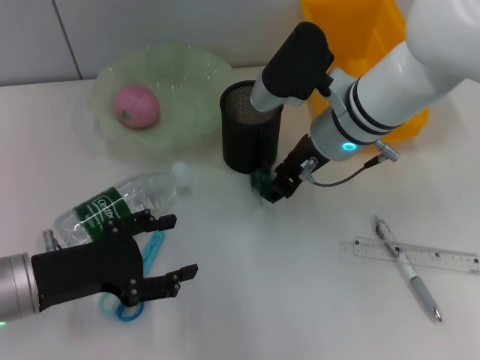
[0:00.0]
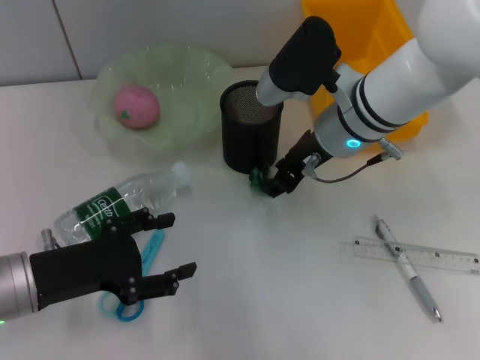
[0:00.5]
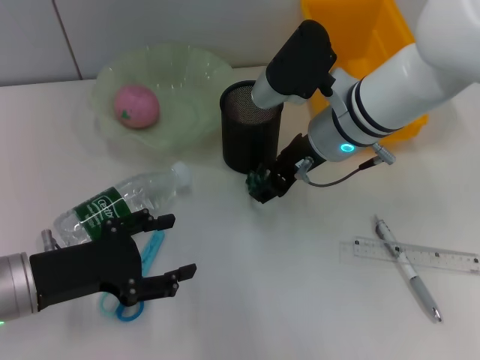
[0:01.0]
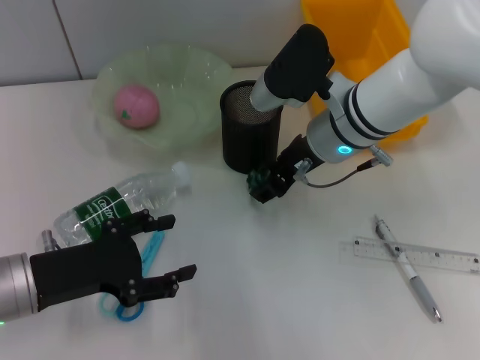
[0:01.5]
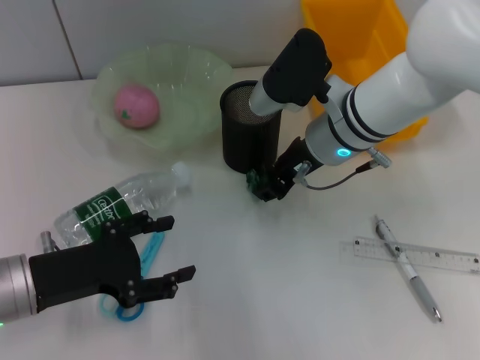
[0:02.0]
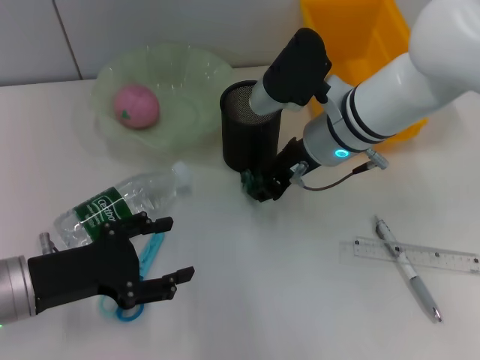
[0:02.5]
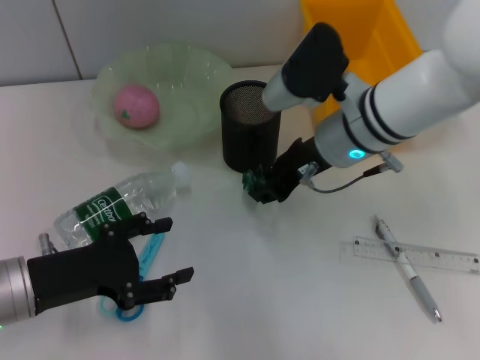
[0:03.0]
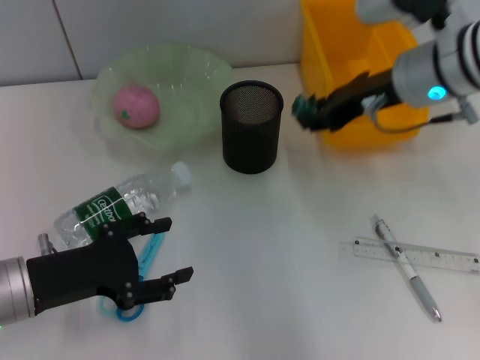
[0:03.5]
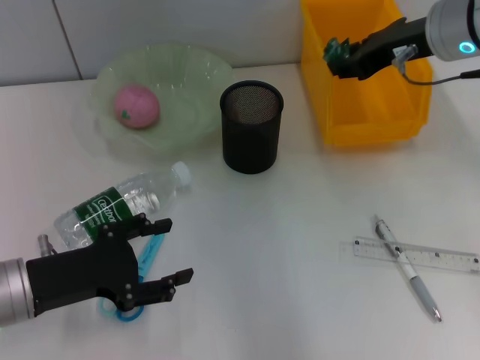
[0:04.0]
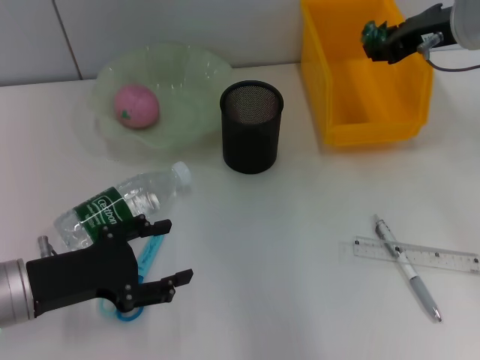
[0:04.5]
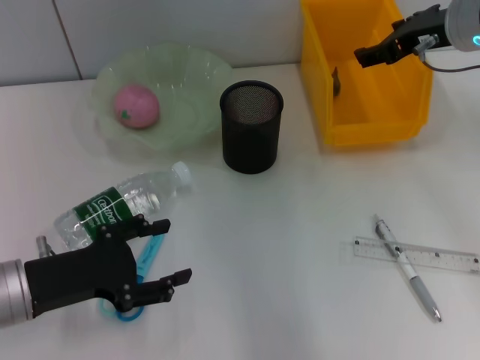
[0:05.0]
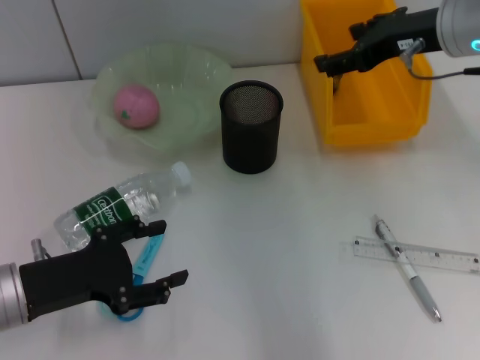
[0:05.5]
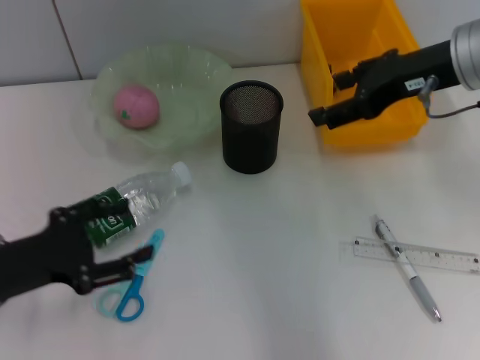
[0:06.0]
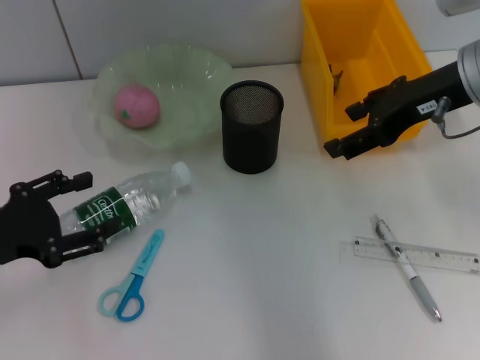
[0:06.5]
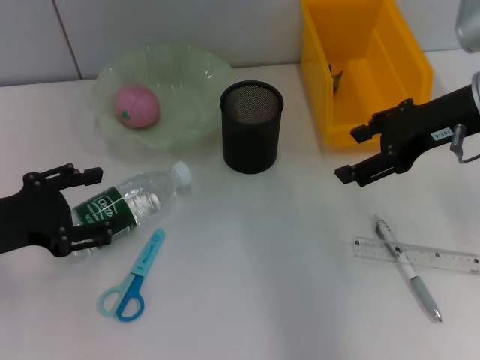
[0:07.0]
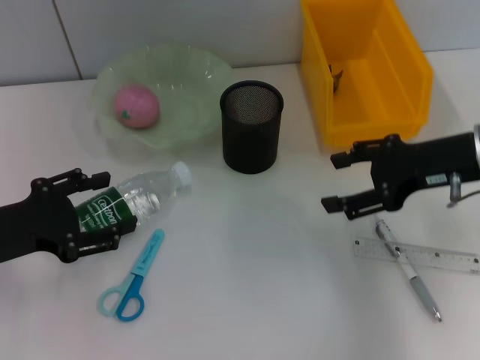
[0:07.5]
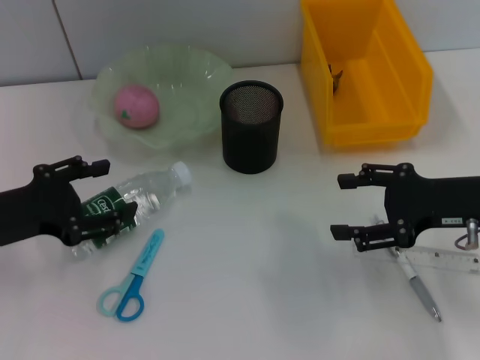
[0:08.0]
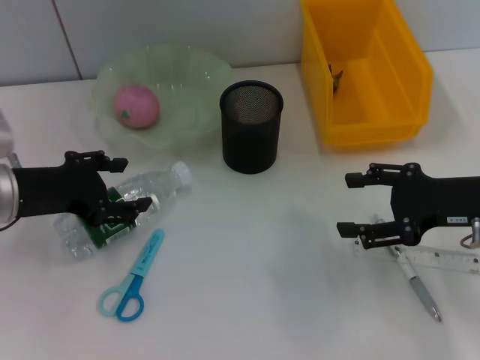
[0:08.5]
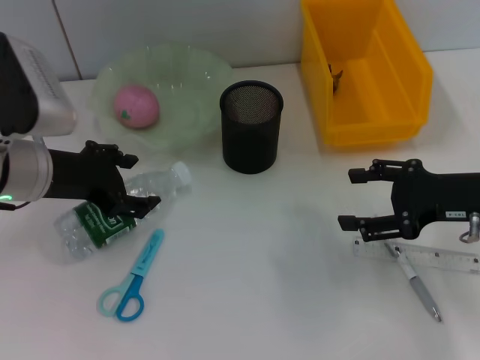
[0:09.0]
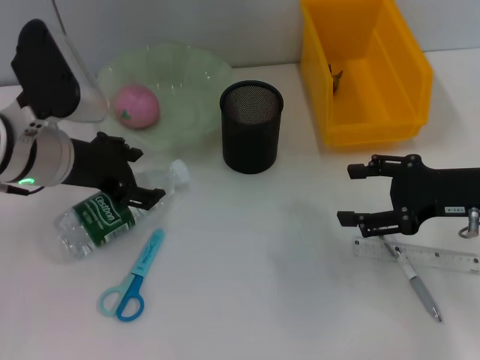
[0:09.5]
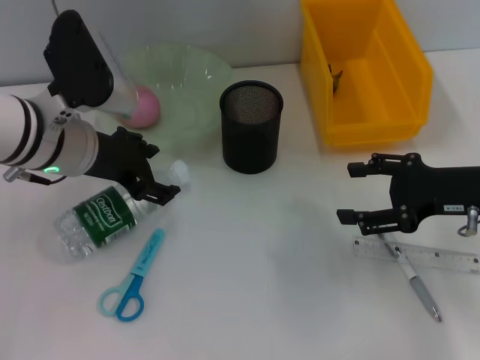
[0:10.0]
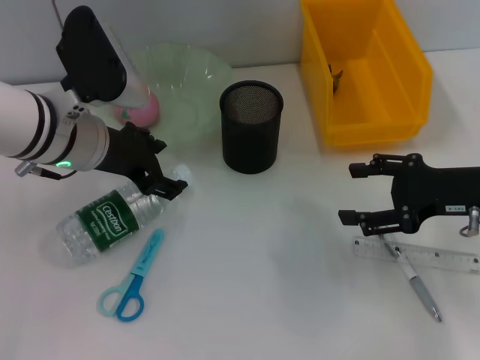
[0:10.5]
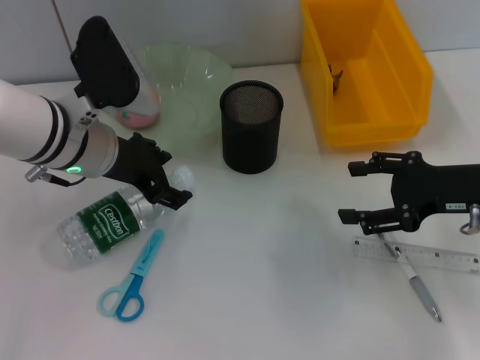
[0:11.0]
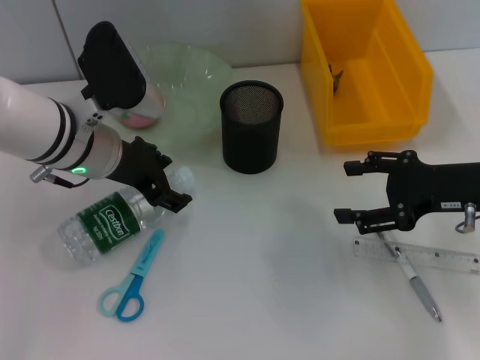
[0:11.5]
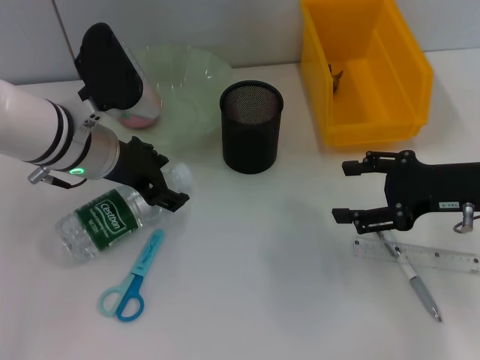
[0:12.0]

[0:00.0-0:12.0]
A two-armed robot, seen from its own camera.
Step, 0.0 to 2.5 s: Grab the plastic with the right hand.
Step, 3.0 to 5.0 s: Place the plastic into the trash can with the right hand.
0.0 to 2.0 s: Both grippers stay about where they are.
2.0 to 4.0 s: The right gripper shifts some 15 cm to the right and upward.
4.0 to 6.0 s: The right gripper opens.
6.0 to 8.0 s: The right gripper heads downward, backward and to the right, covering about 15 cm.
8.0 to 10.0 s: The left gripper heads to the right and forward, covering approximately 15 cm.
10.0 to 12.0 s: The grippers move only a little.

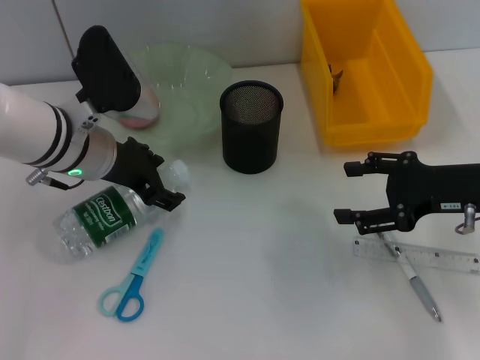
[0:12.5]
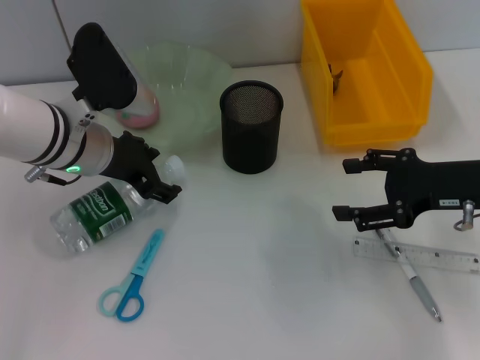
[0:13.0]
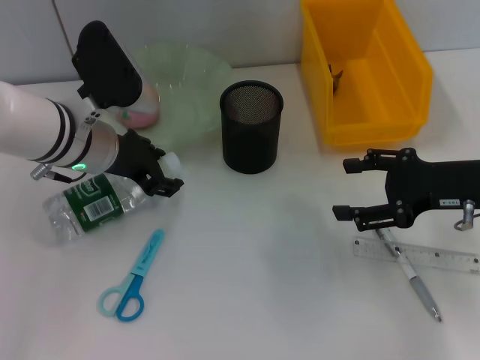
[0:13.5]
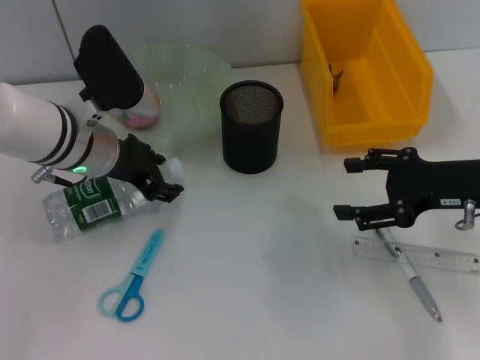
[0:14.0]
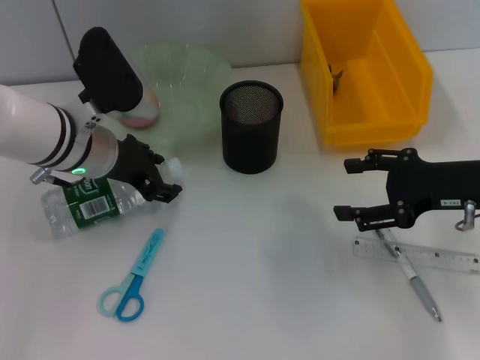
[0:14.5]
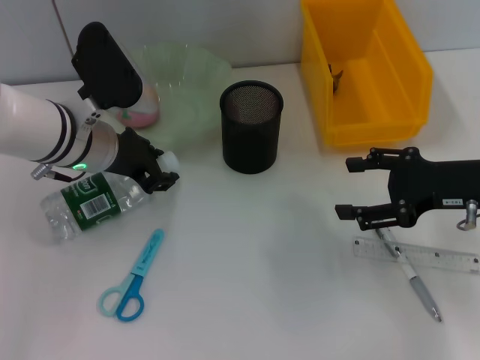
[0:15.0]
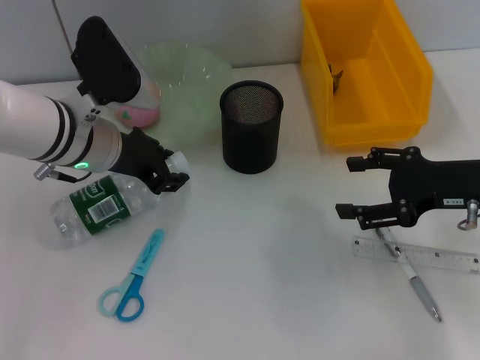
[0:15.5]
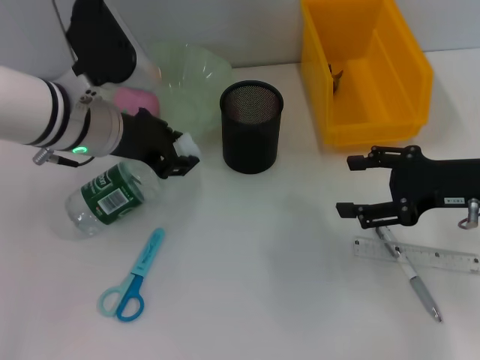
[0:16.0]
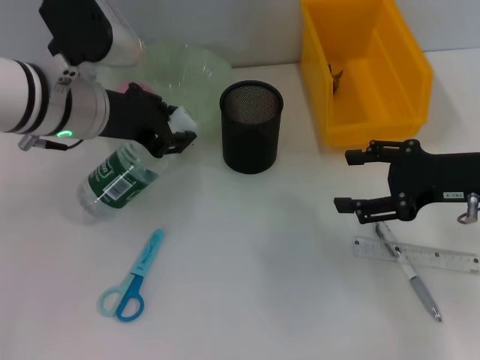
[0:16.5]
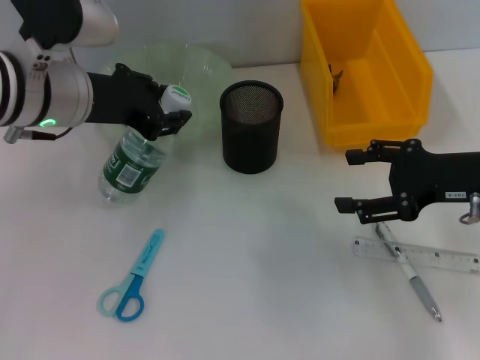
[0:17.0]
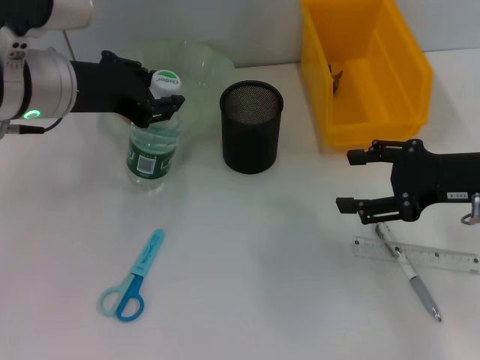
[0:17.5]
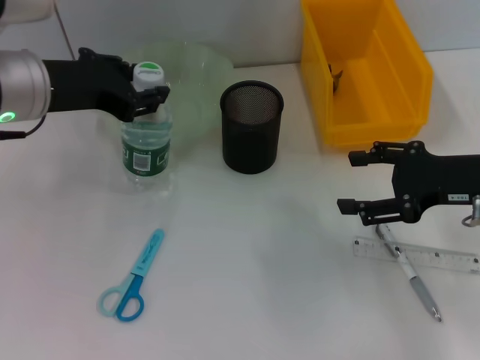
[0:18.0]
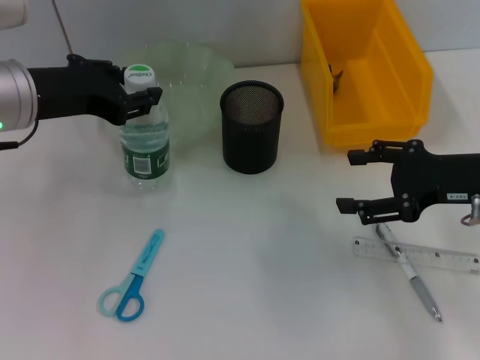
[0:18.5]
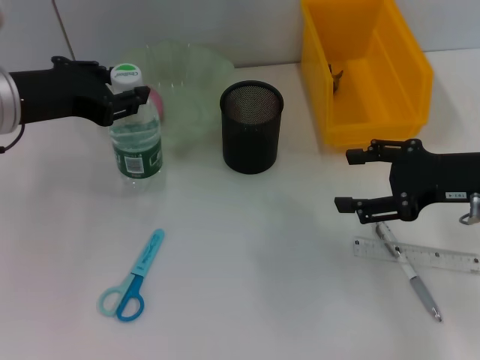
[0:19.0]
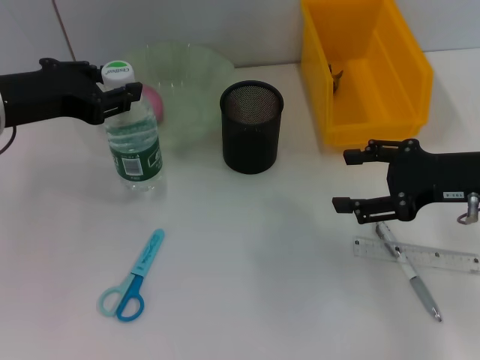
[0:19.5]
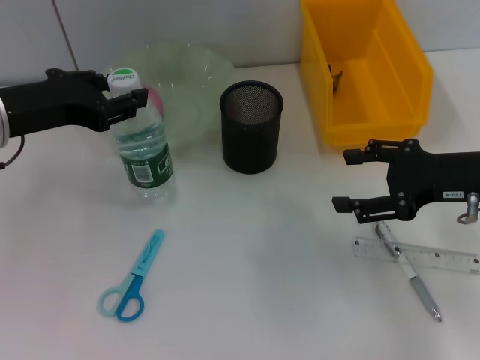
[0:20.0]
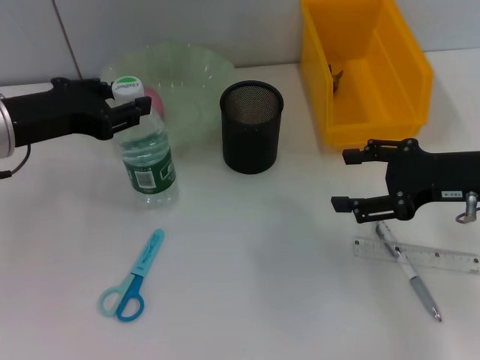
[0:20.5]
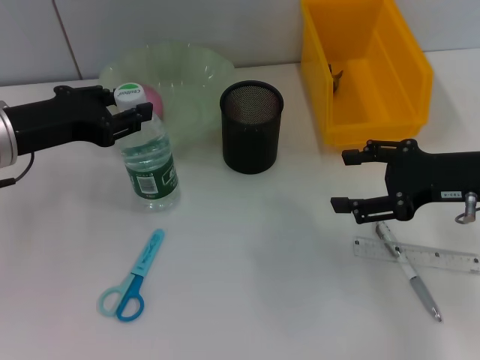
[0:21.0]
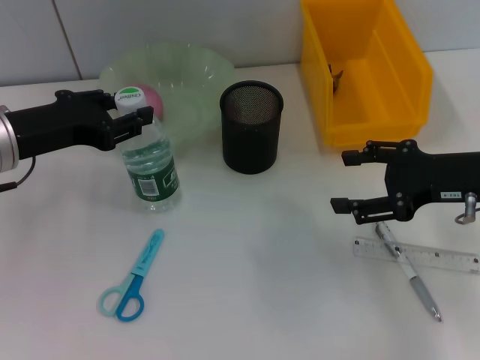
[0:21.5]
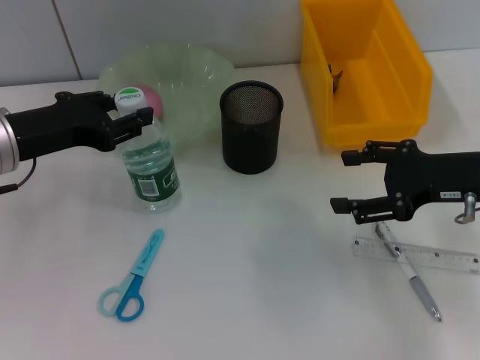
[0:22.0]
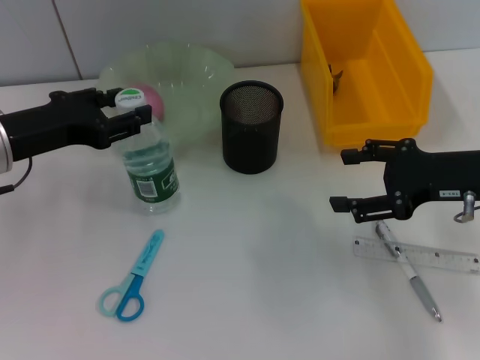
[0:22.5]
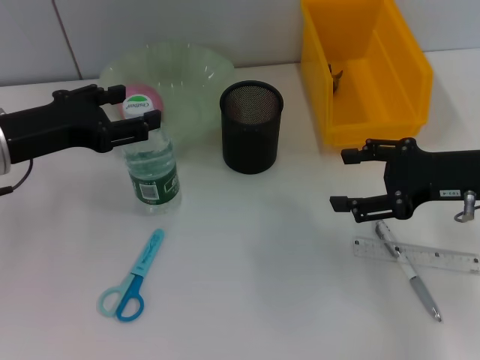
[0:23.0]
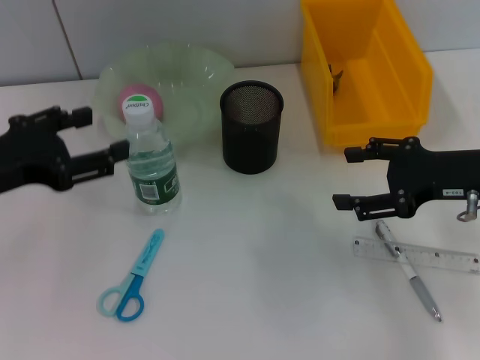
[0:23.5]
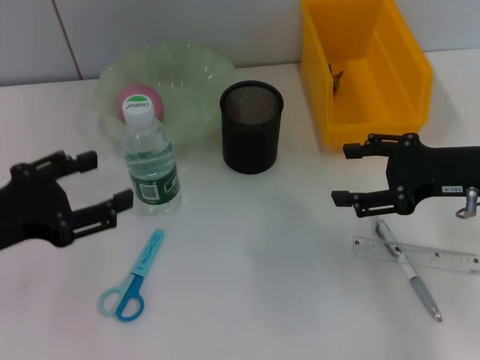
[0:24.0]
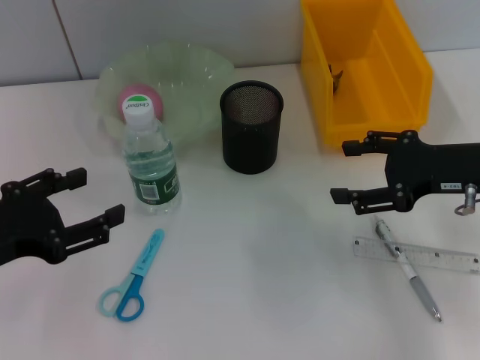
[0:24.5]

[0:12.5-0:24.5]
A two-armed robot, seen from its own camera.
Step, 12.5 to 15.0 s: Grab the water bottle with the left hand.
Step, 15.5 to 22.5 s: Place the water bottle on the table with the left hand.
12.5 to 14.5 s: The two grippers keep their place.
14.5 to 16.5 s: The left gripper goes some 5 cm upward.
16.5 to 18.5 s: The left gripper moves to the left, approximately 5 cm.
18.5 to 20.5 s: The grippers make only small movements.
20.5 to 22.5 s: The grippers move only a little.
22.5 to 24.5 s: The left gripper travels backward by approximately 10 cm, and opens.

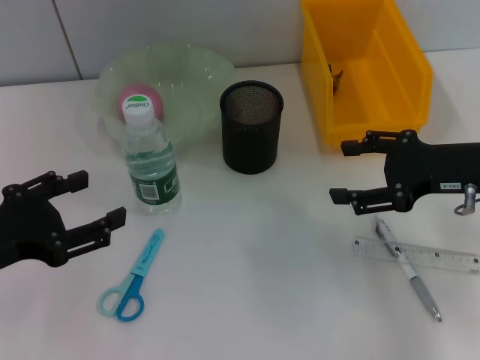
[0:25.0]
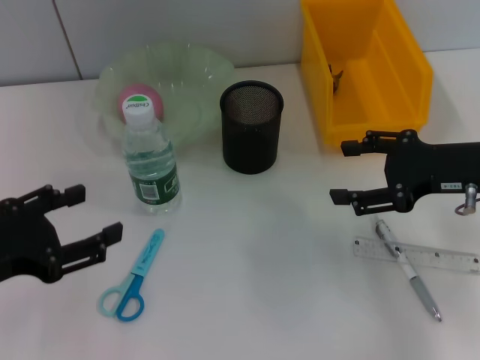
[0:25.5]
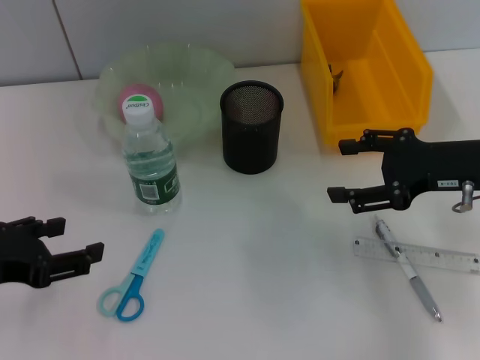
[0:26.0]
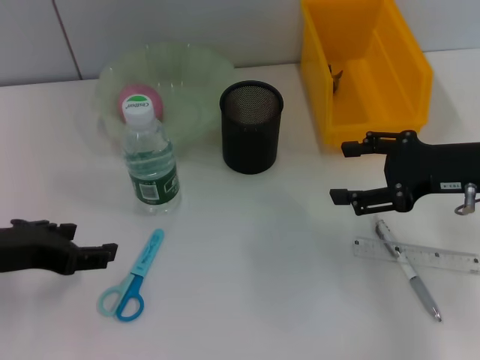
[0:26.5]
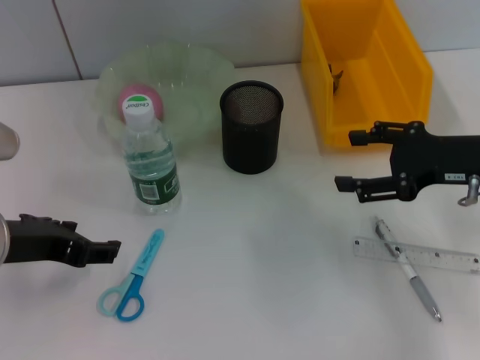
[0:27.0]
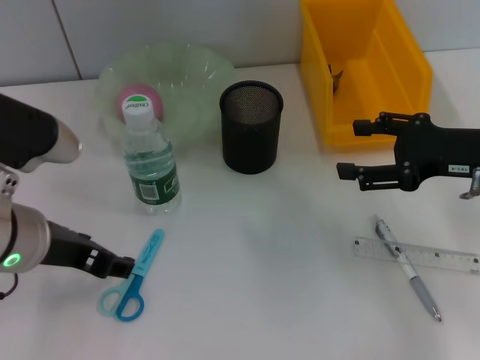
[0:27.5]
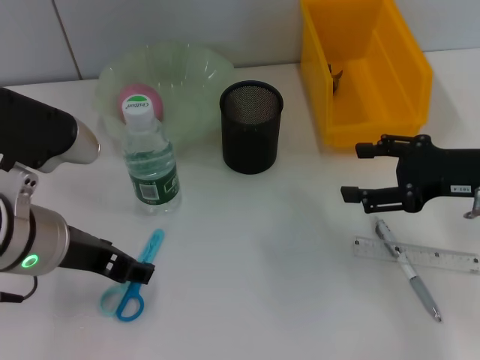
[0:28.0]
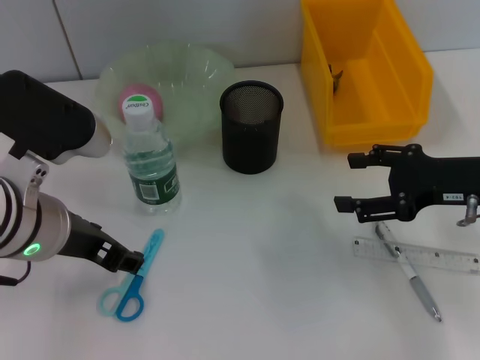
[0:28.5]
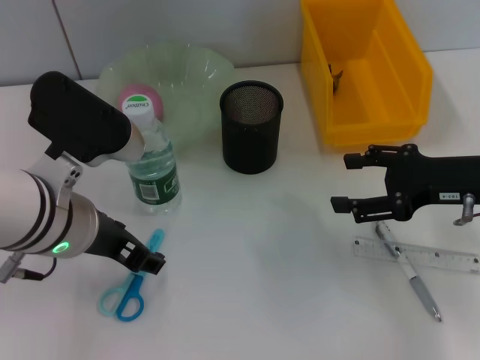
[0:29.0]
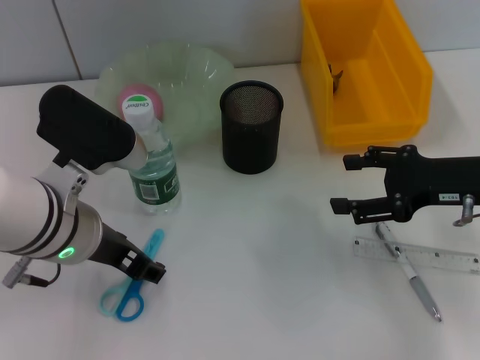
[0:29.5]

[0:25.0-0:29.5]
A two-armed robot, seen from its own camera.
25.0 to 27.0 s: The left gripper changes place by about 5 cm.
27.0 to 29.5 s: The left gripper goes roughly 10 cm to the right.
